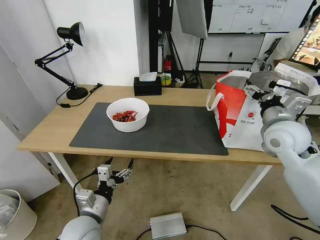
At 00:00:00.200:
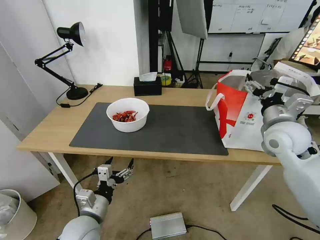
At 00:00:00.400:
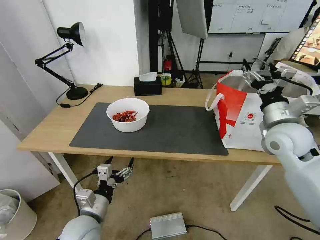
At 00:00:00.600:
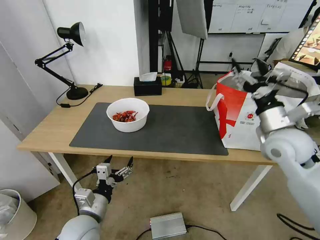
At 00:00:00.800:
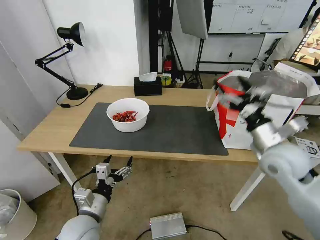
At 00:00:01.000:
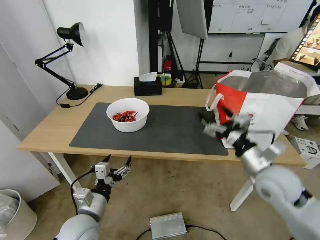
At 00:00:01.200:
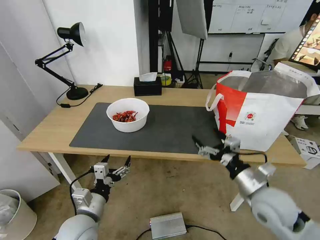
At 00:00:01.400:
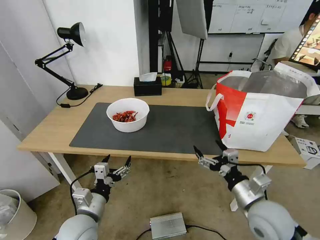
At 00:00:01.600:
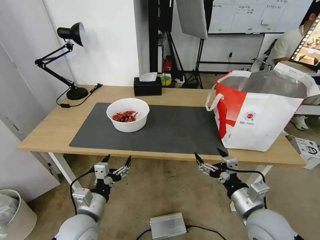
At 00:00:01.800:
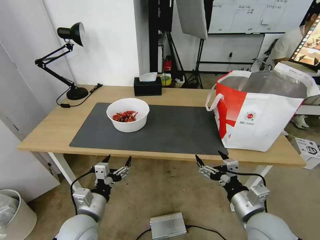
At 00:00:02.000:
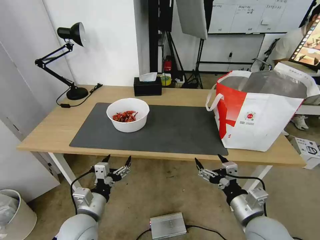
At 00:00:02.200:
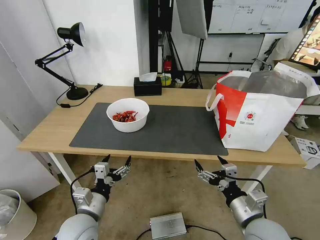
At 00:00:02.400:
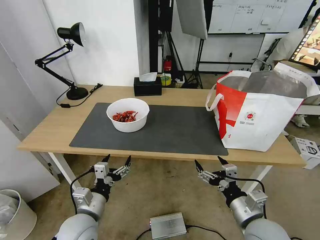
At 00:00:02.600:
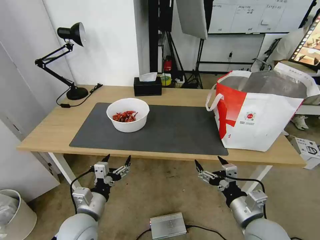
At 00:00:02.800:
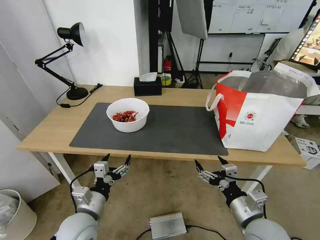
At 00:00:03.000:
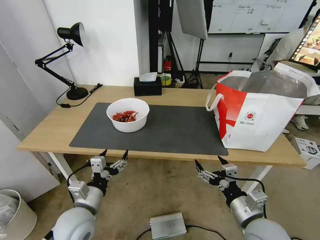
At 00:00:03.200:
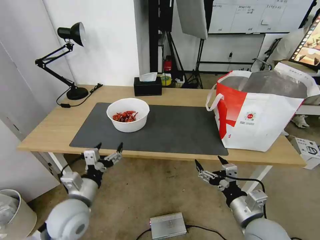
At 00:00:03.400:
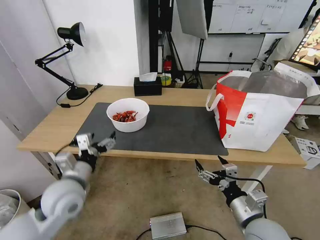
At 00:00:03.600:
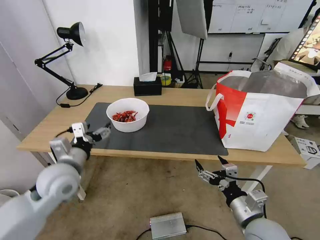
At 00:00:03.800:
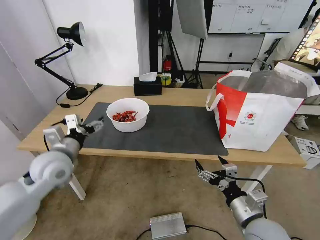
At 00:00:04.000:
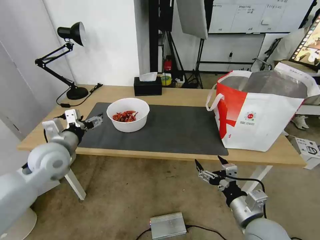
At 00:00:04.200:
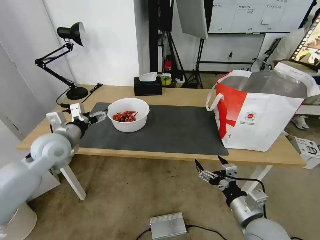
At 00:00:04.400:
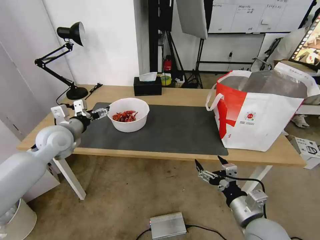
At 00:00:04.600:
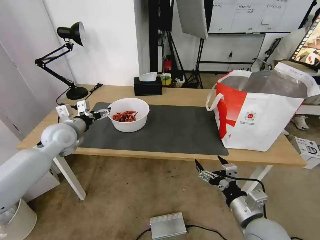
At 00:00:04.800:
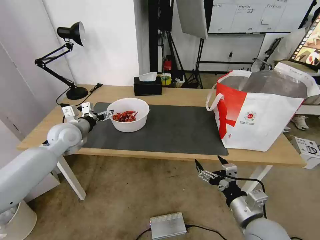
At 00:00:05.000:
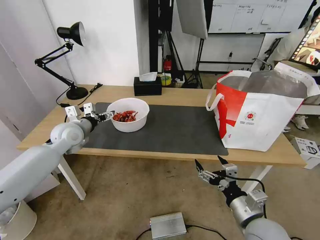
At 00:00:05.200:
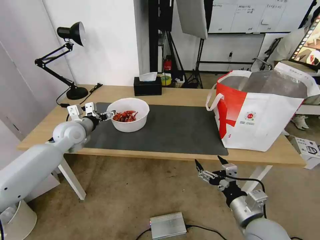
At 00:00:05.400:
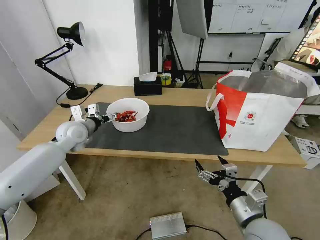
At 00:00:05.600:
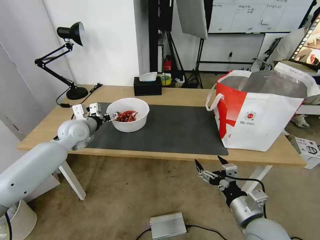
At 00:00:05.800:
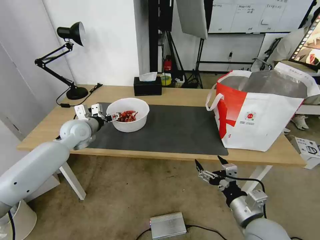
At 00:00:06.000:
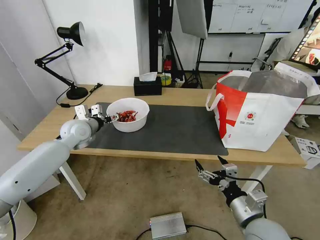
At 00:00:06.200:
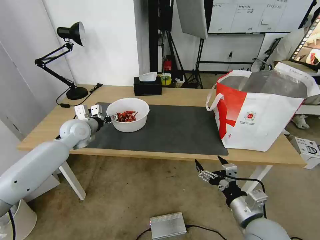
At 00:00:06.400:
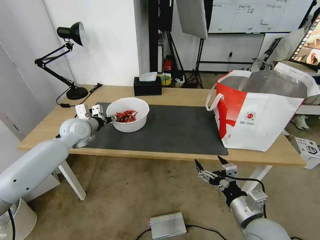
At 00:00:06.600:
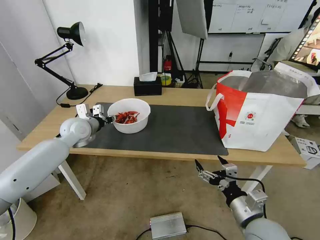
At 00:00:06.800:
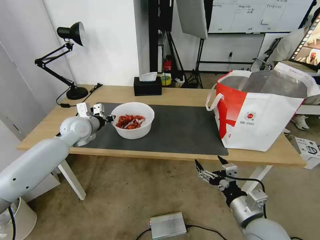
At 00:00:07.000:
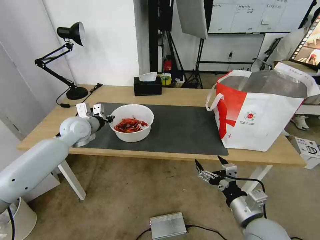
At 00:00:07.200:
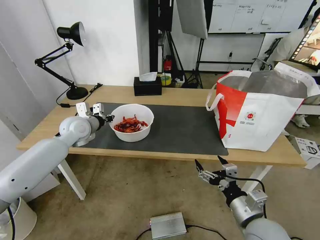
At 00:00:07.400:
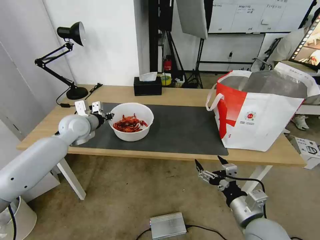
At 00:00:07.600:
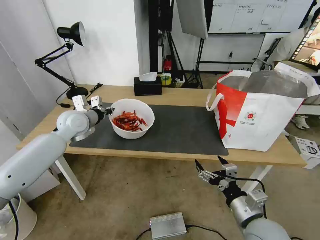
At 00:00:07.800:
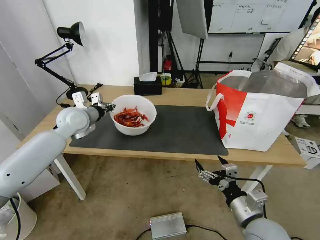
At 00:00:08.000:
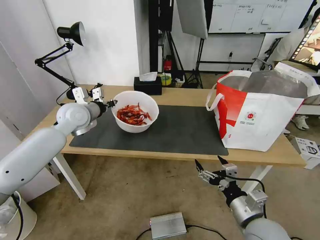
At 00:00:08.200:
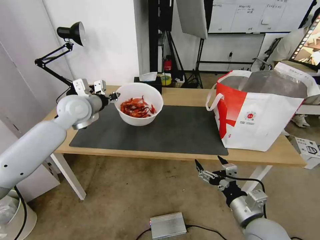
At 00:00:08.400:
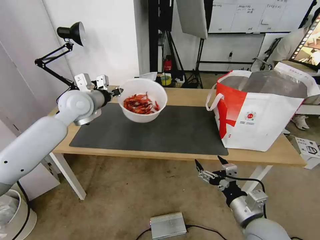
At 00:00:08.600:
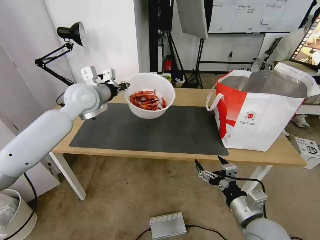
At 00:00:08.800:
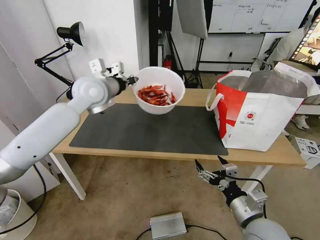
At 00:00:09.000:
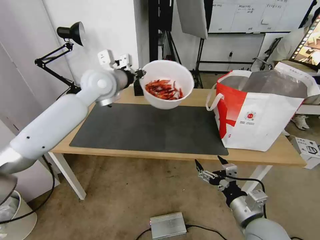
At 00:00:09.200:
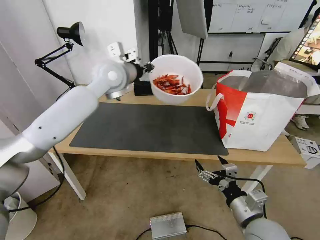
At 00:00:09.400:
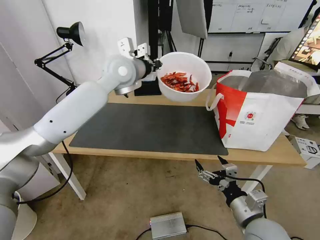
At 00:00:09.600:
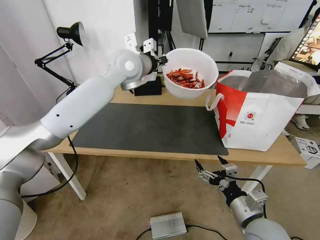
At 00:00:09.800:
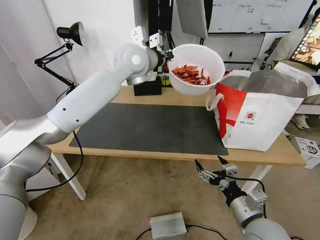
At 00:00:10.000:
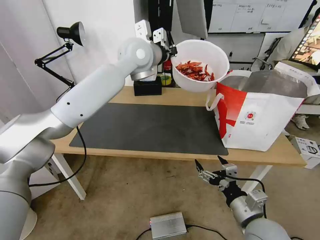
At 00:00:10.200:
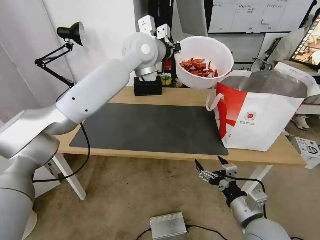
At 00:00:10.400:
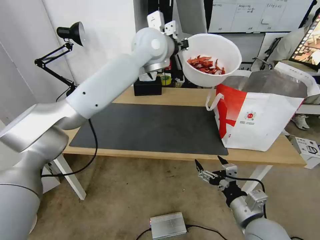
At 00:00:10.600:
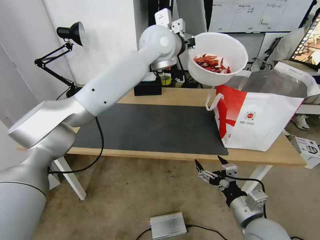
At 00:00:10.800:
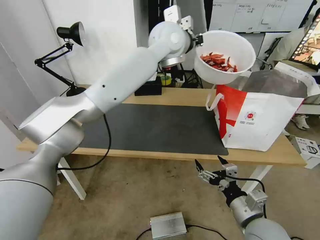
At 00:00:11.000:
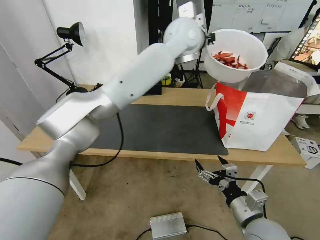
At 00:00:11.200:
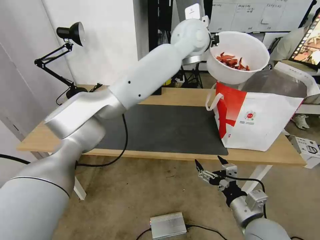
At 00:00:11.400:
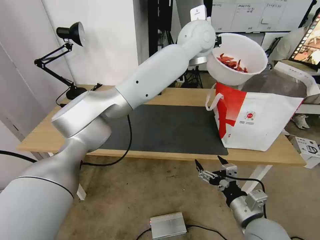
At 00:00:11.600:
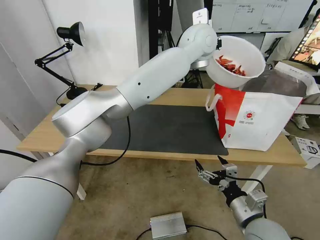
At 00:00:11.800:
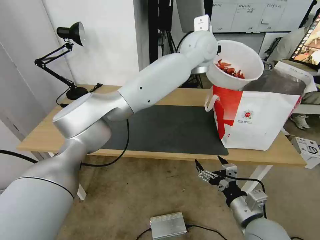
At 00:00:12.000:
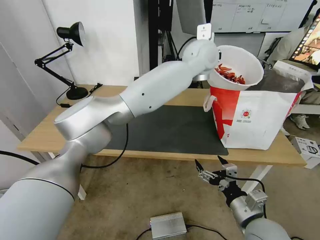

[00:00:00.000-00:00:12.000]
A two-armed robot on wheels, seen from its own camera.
Task of the whole recording: Pick up the trash from the table and place it into the takeout bag.
00:00:00.000 to 00:00:01.600: The right gripper is displaced backward and downward by about 25 cm.
00:00:01.600 to 00:00:03.000: The grippers move only a little.
00:00:03.000 to 00:00:04.400: The left gripper moves forward, upward and to the left, roughly 25 cm.
00:00:04.400 to 00:00:06.000: The left gripper goes roughly 5 cm forward.
00:00:06.000 to 00:00:07.600: The left gripper closes.
00:00:07.600 to 00:00:09.000: The left gripper travels upward and to the right by some 20 cm.
00:00:09.000 to 00:00:10.400: The left gripper is displaced to the right and upward by roughly 15 cm.
00:00:10.400 to 00:00:12.000: The left gripper is displaced to the right by about 15 cm.

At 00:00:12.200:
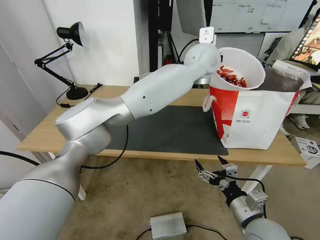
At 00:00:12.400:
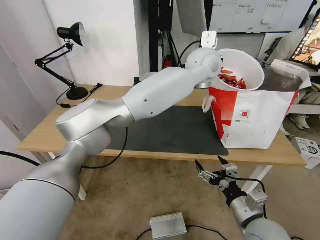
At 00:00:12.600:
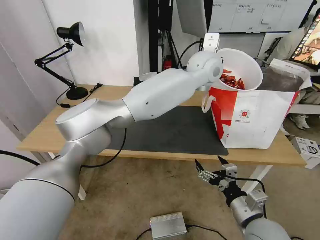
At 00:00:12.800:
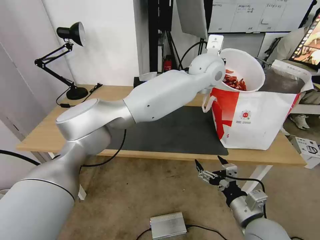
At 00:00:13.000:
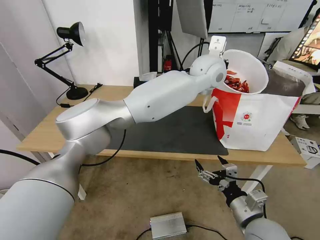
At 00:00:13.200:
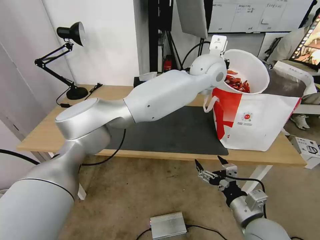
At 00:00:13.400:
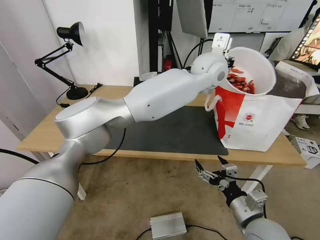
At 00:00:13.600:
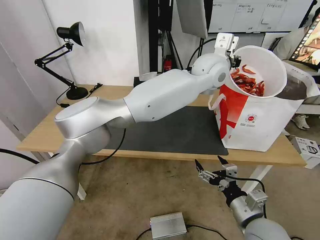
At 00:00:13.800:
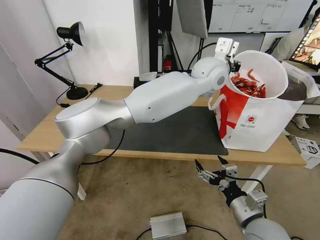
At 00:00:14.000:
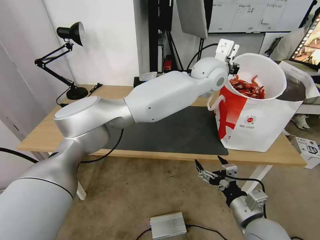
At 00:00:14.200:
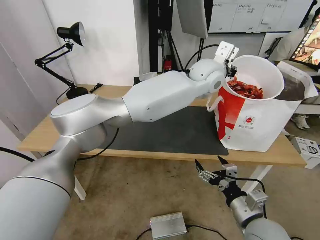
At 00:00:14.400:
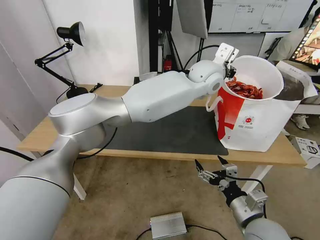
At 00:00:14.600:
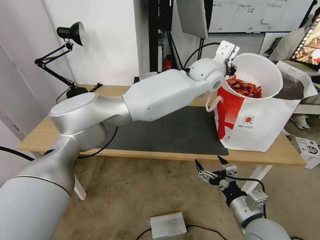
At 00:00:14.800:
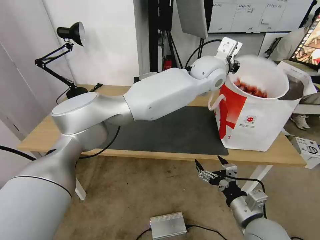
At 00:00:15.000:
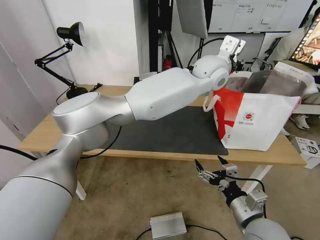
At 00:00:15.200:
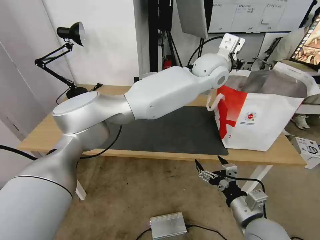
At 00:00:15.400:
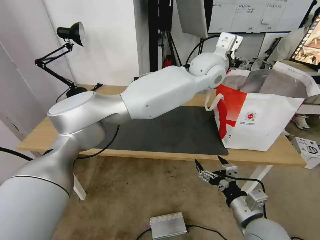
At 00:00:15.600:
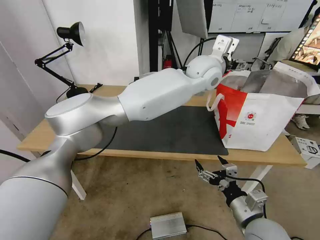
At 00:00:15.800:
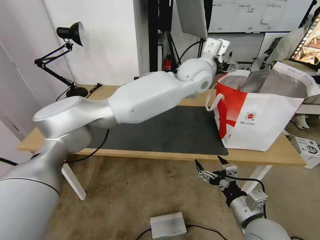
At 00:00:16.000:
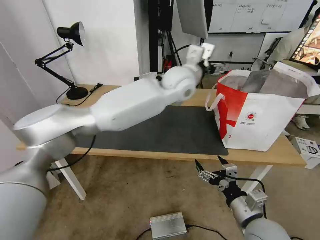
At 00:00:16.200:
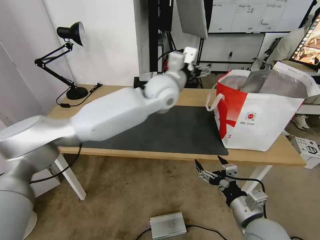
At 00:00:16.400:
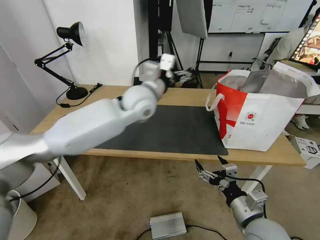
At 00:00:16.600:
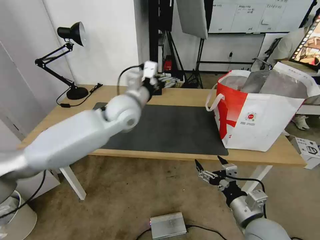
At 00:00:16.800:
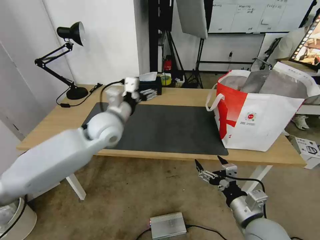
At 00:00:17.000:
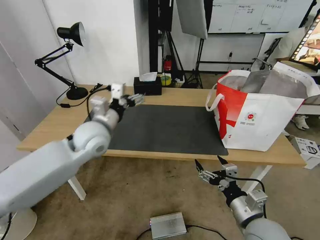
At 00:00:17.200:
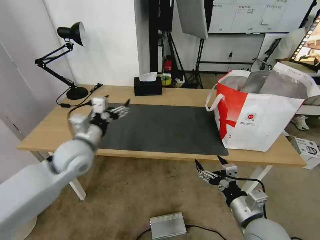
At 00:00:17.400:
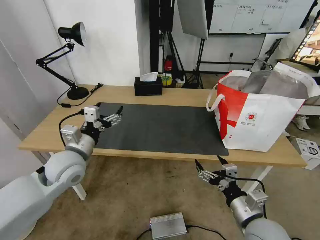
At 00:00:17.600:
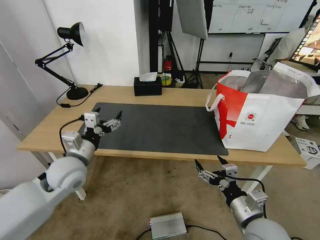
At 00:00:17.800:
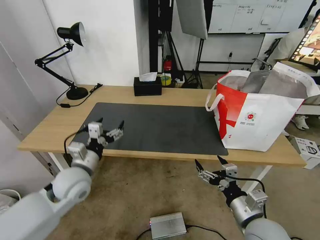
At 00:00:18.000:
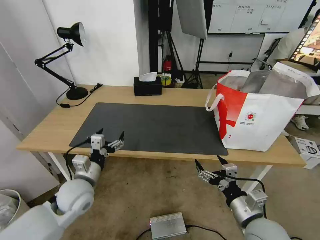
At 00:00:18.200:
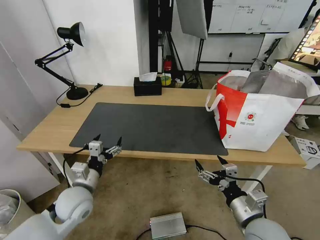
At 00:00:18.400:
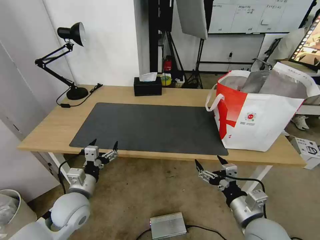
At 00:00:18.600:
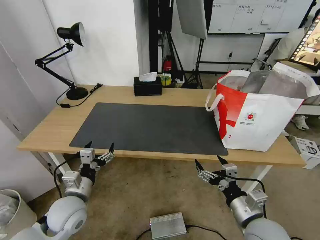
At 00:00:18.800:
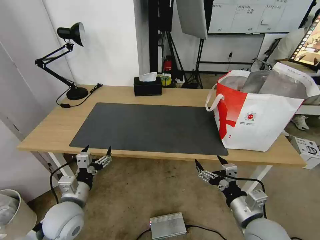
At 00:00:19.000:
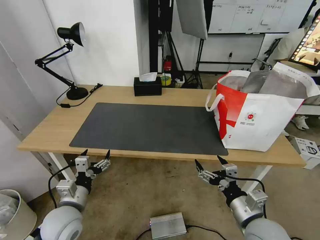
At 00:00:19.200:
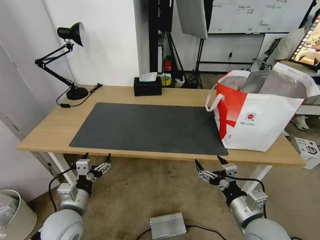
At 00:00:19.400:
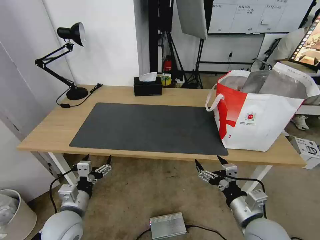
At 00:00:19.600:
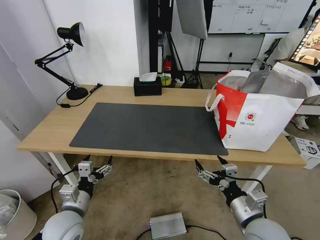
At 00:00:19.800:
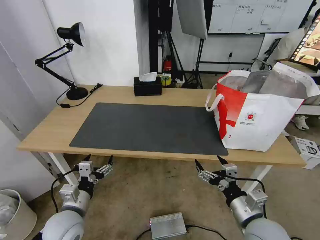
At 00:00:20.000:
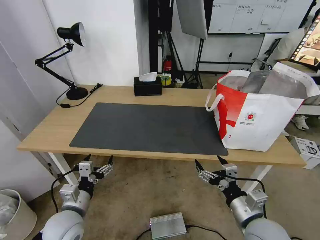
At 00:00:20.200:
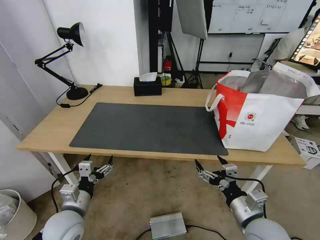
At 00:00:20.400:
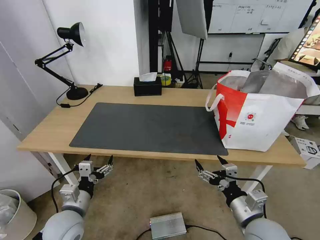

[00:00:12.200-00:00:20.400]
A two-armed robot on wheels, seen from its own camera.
Task of the whole recording: Pick up the trash from the table and place it into the takeout bag.
00:00:12.200 to 00:00:13.800: There are only small adjustments of the grippers.
00:00:13.800 to 00:00:15.400: The left gripper opens up.
00:00:15.400 to 00:00:17.200: The left gripper shifts about 40 cm to the left, downward and backward.
00:00:17.200 to 00:00:18.800: The left gripper is displaced backward and downward by some 20 cm.
00:00:18.800 to 00:00:20.400: The grippers stay close to where they were, moving slightly.
